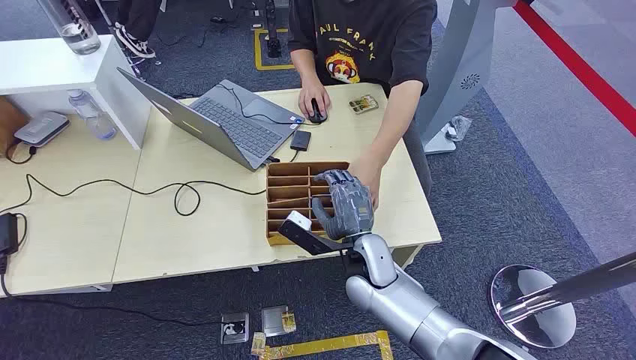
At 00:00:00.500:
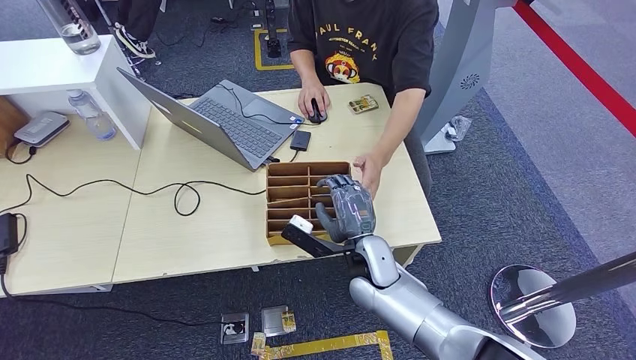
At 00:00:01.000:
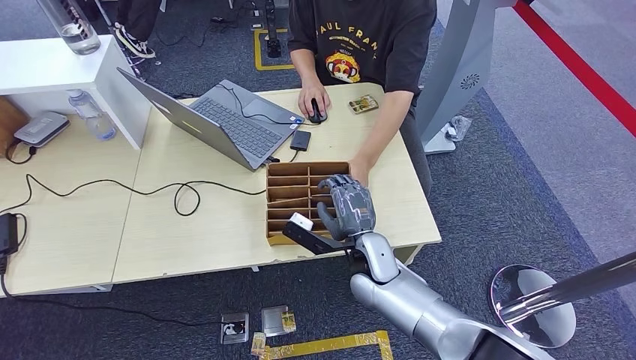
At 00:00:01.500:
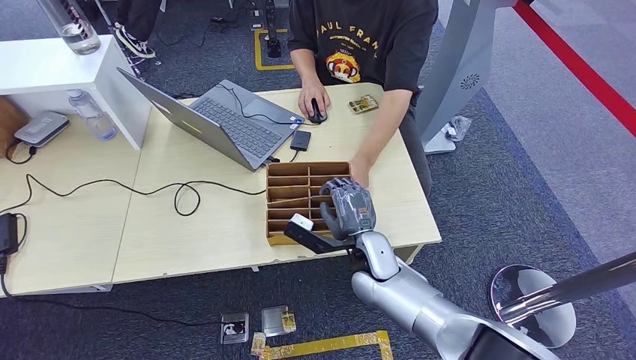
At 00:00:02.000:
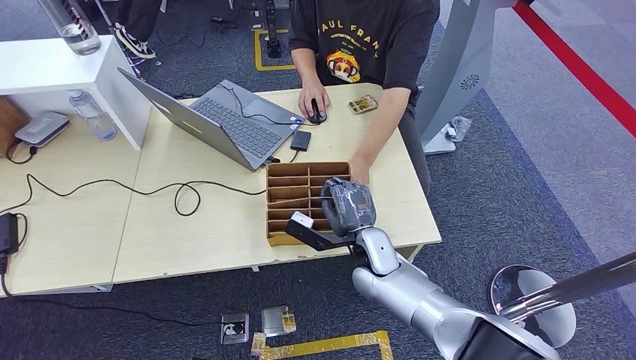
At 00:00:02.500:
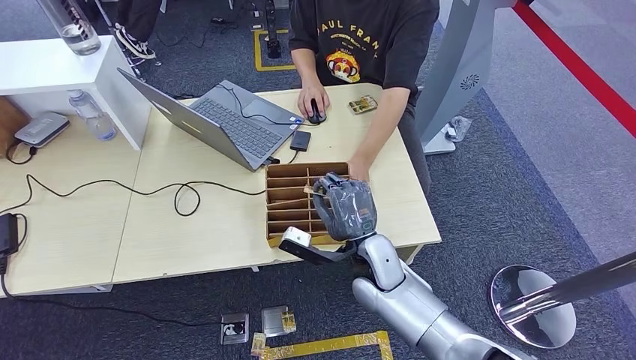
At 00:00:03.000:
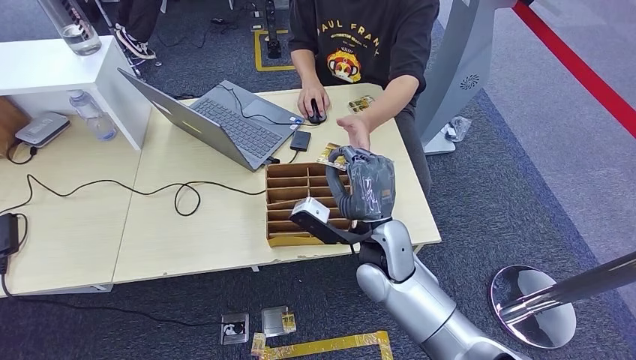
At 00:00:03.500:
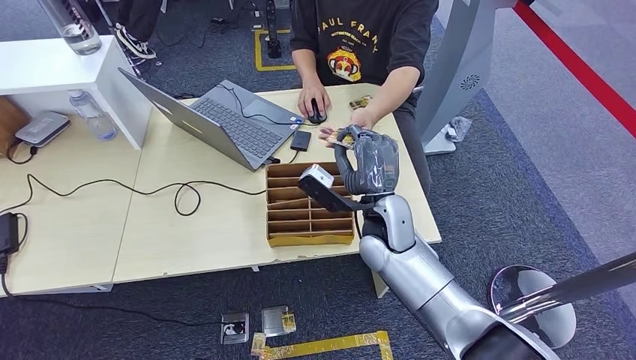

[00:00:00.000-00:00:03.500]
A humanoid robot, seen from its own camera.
Step, 00:00:00.000 to 00:00:02.500: Pick up the key card from the card box.
Step, 00:00:03.000 to 00:00:03.500: Hand the key card to the target.
00:00:02.000 to 00:00:03.500: The right hand moves upward, approximately 10 cm.
